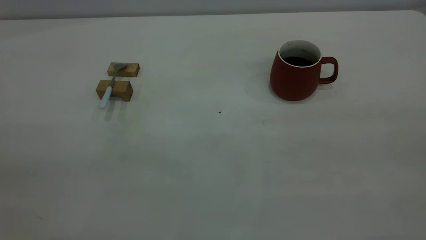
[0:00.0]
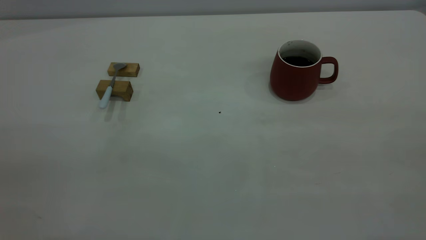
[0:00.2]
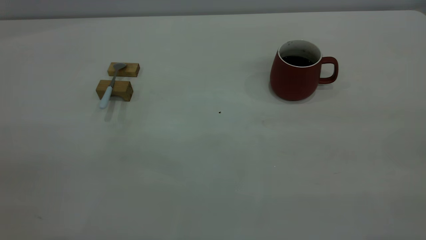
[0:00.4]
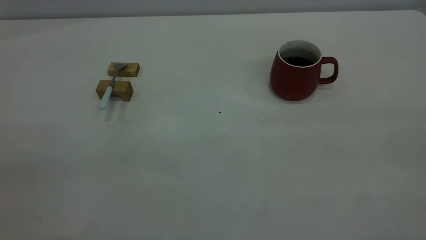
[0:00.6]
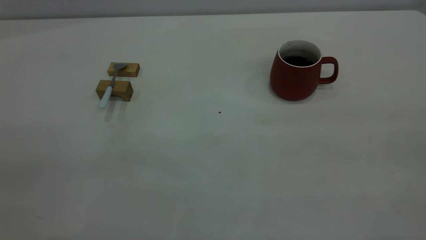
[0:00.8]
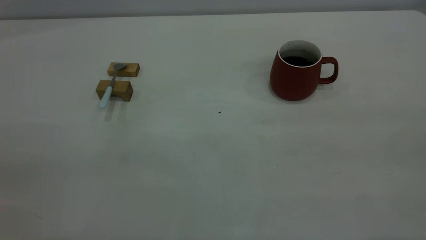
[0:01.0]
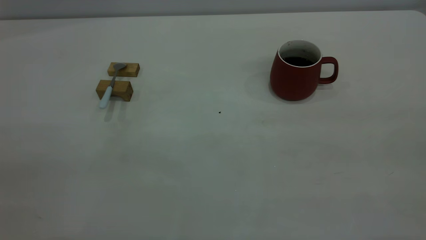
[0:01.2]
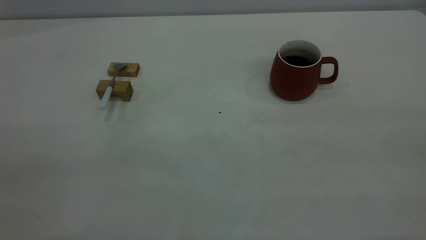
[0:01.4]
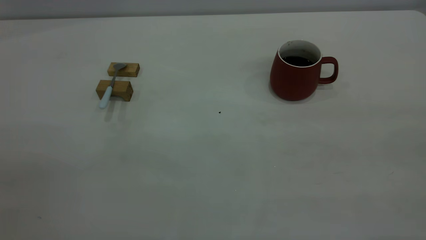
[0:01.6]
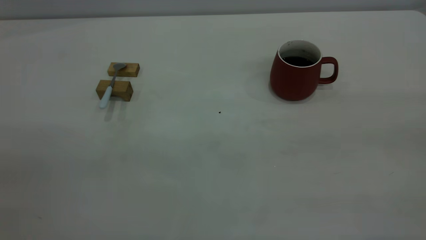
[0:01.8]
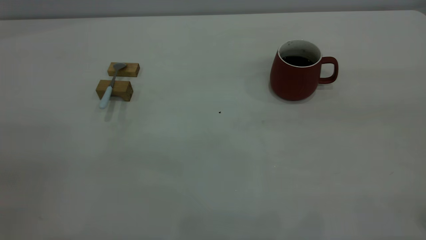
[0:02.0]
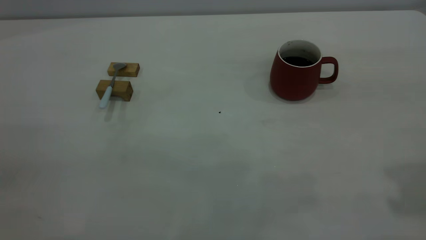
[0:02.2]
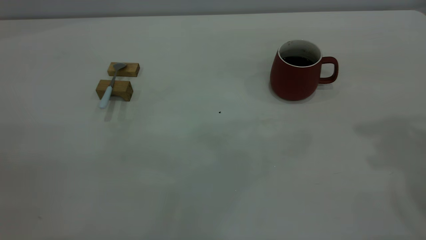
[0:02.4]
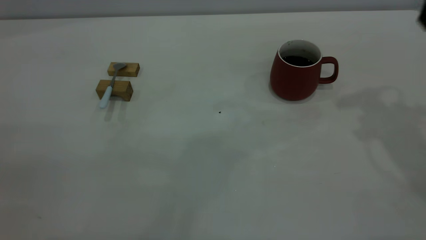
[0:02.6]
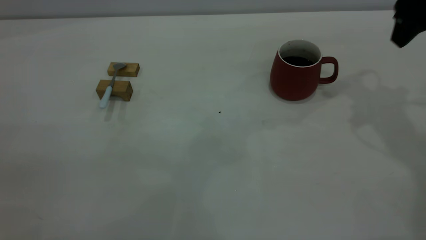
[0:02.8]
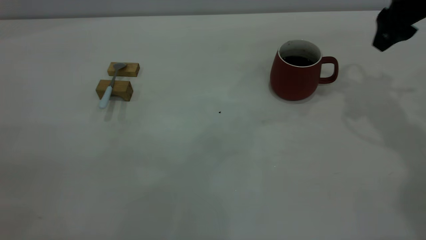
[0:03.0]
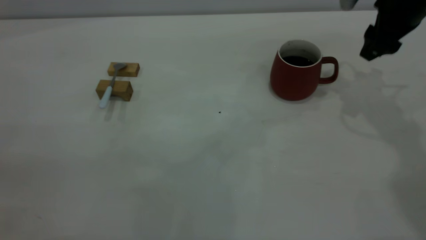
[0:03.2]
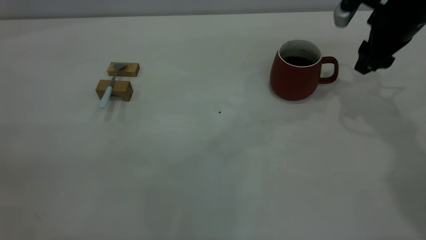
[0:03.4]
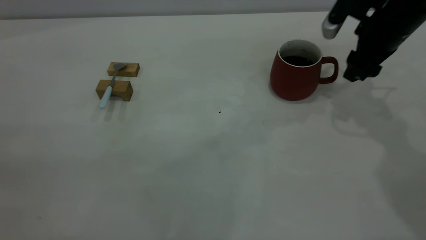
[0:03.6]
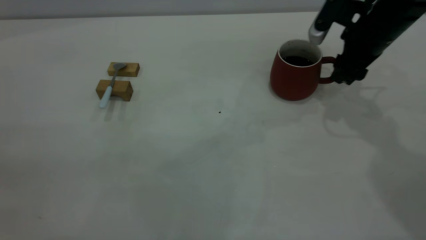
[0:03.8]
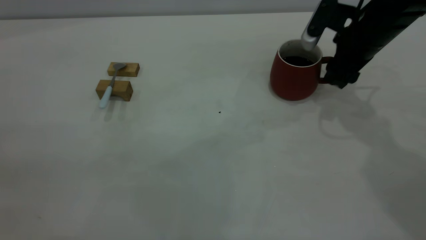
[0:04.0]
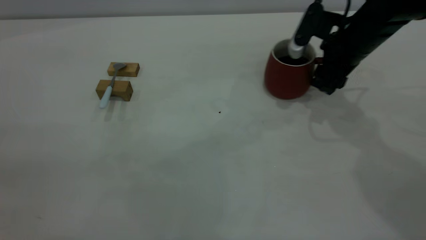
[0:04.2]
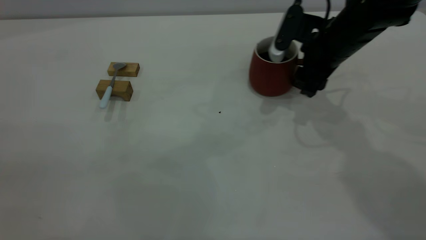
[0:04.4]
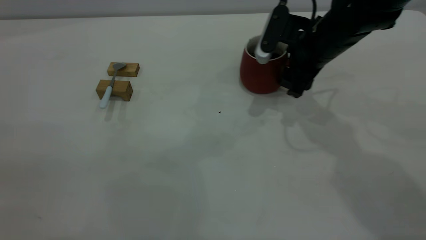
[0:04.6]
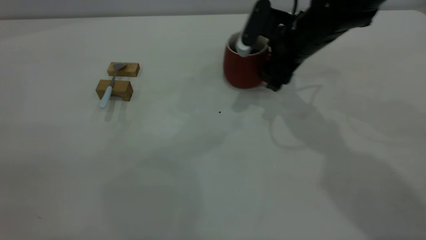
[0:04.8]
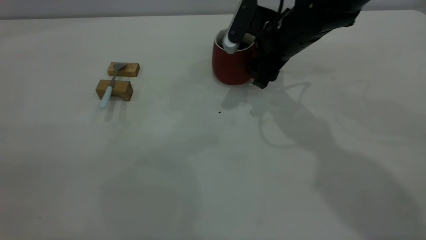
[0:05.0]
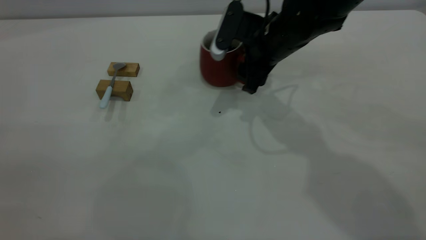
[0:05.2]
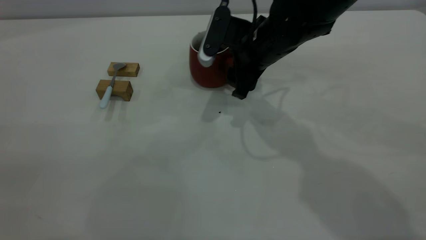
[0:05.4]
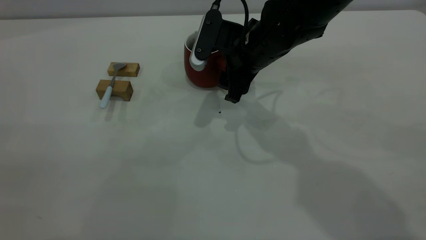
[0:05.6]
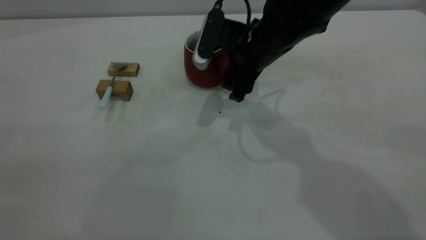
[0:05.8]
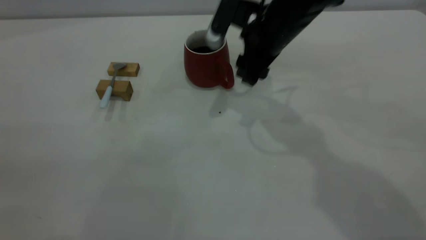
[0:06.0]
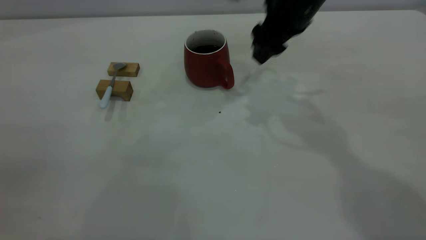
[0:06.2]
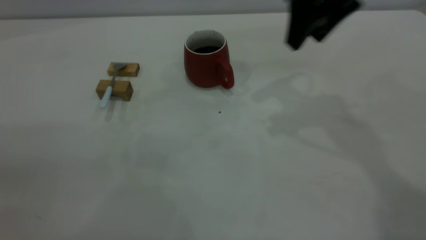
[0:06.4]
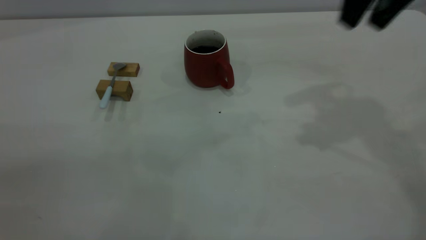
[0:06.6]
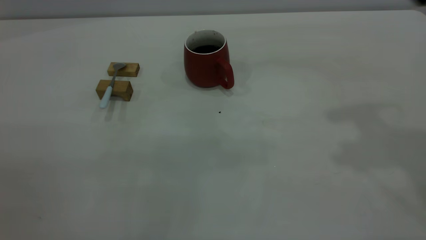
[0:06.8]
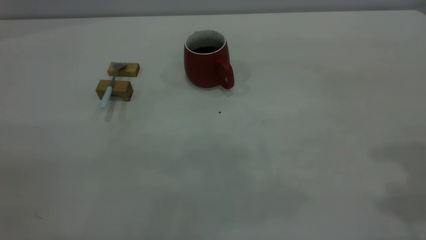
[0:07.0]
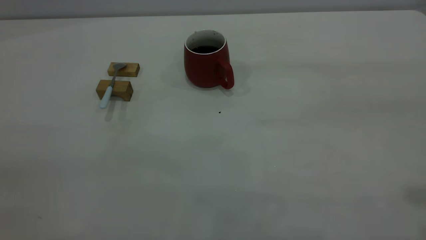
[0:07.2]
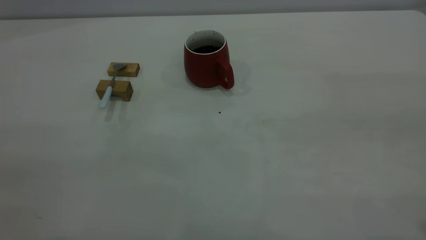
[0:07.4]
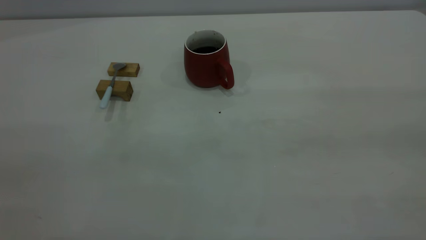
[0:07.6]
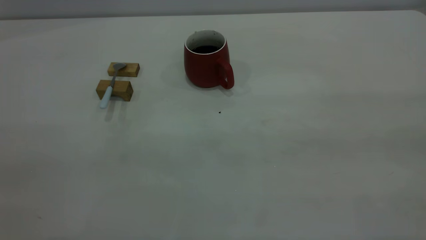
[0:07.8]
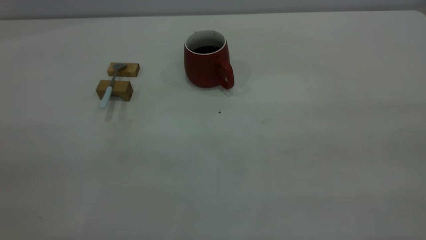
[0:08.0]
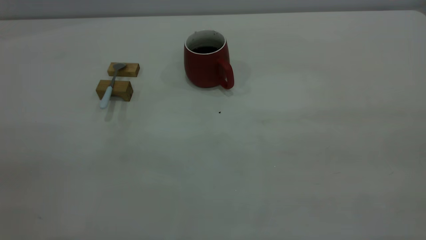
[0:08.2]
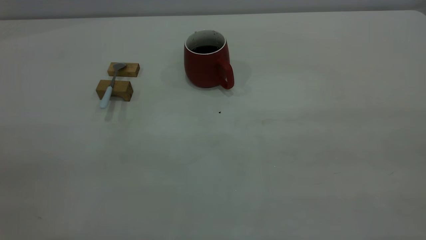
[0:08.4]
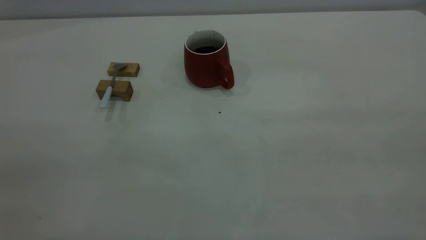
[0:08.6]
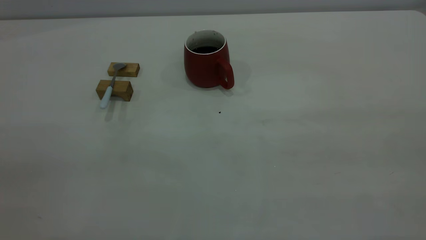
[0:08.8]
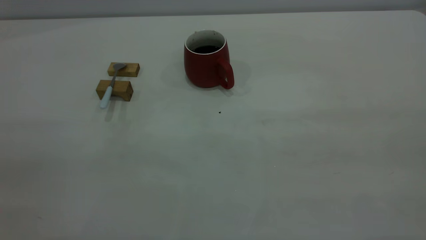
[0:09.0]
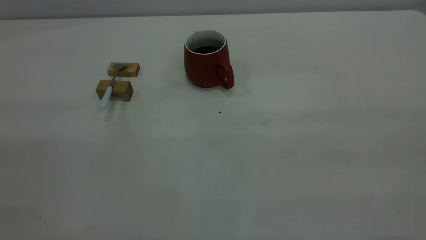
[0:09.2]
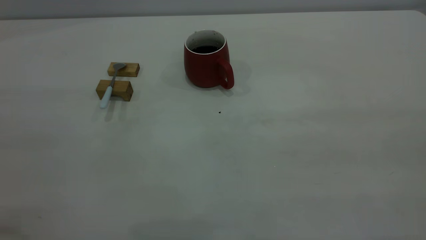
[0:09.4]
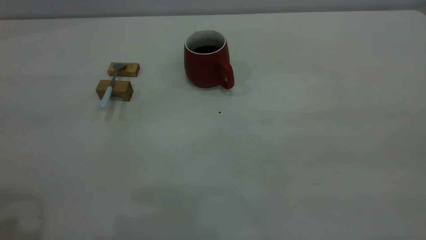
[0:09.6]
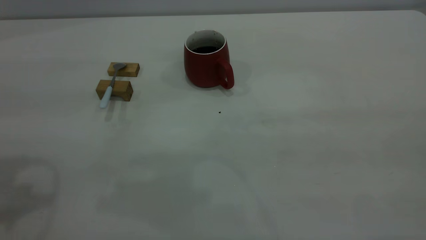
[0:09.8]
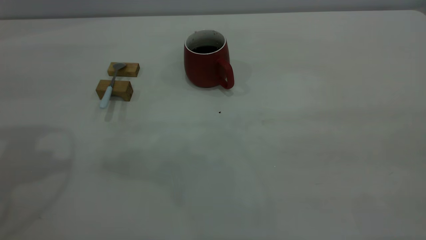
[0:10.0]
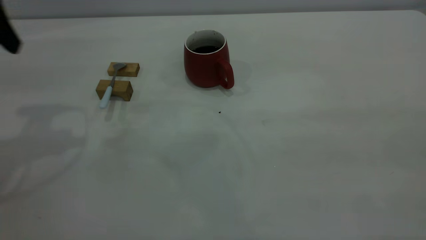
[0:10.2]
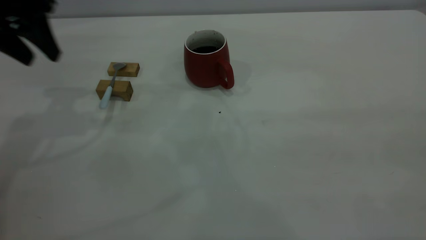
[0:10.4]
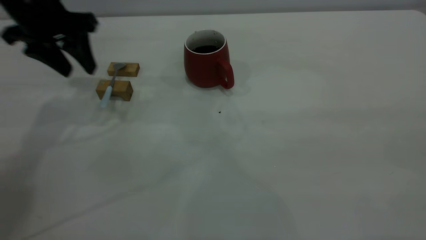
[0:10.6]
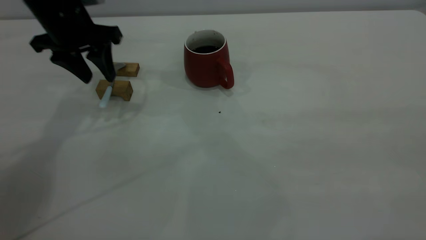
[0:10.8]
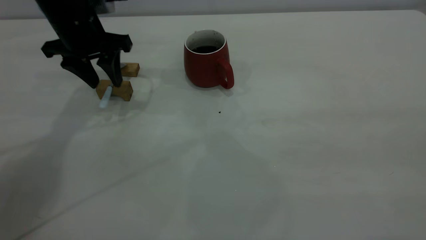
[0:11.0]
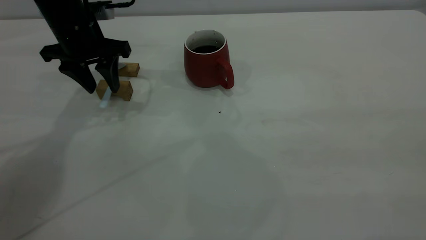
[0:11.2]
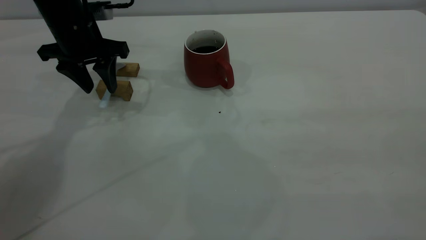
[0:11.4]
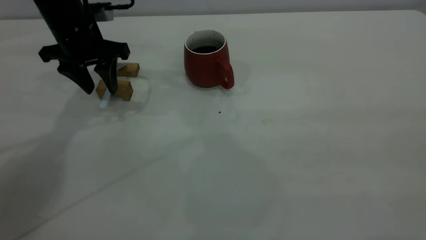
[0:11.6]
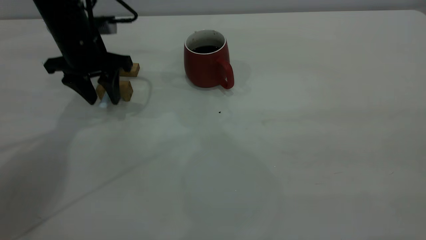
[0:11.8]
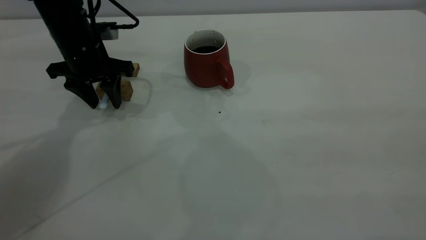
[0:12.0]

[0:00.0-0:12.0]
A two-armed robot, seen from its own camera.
Step, 0:00.0 to 0:06.0: Move the cup with coffee to the center of view.
0:00.0 to 0:01.6: Both grippers stay about where they are.
0:01.6 to 0:03.0: The right gripper goes about 40 cm forward and downward.
0:03.0 to 0:04.4: The right gripper shifts approximately 15 cm to the left and downward.
0:04.4 to 0:06.0: The right gripper heads to the left, covering about 10 cm.
0:06.0 to 0:07.6: The right gripper travels backward, to the right and upward by approximately 50 cm.
0:09.0 to 0:10.4: The left gripper shifts approximately 35 cm forward, and opens its fingers.
0:10.4 to 0:12.0: The left gripper travels downward and forward by about 15 cm.

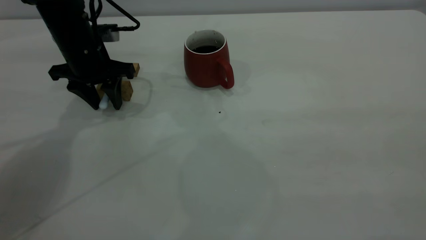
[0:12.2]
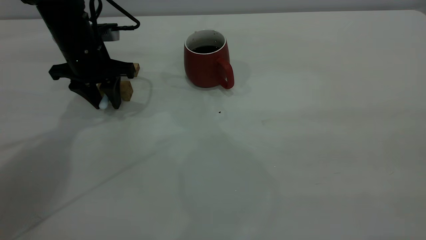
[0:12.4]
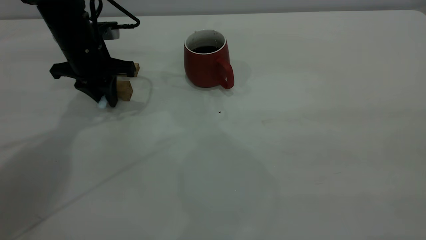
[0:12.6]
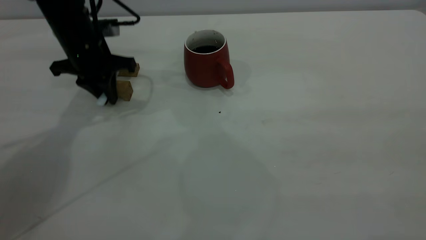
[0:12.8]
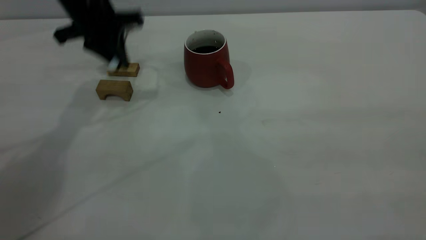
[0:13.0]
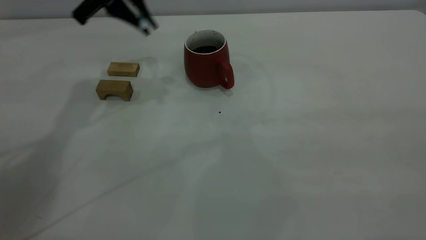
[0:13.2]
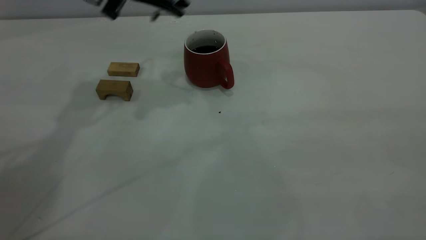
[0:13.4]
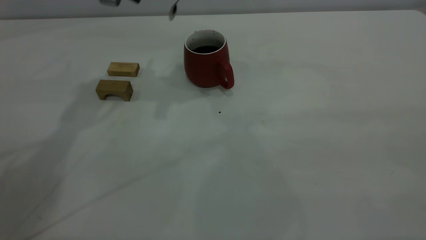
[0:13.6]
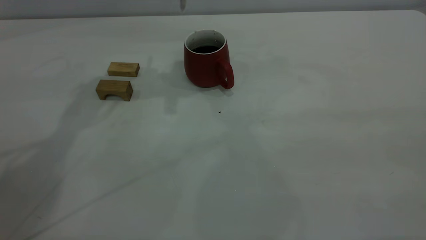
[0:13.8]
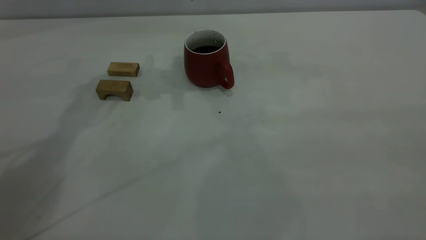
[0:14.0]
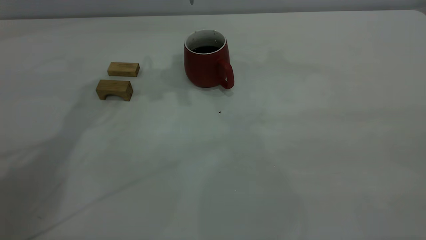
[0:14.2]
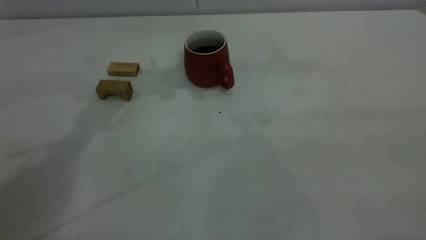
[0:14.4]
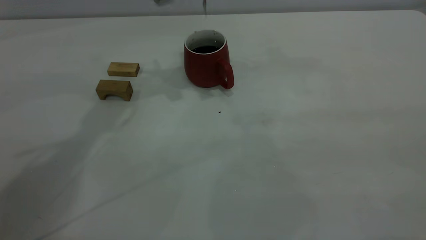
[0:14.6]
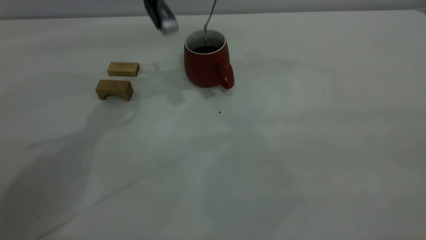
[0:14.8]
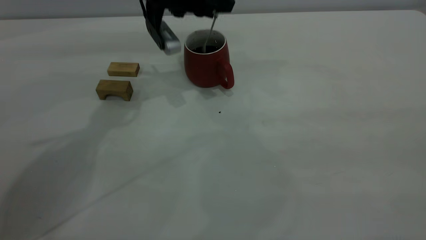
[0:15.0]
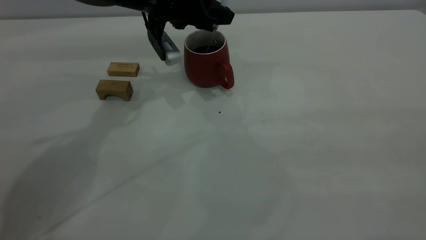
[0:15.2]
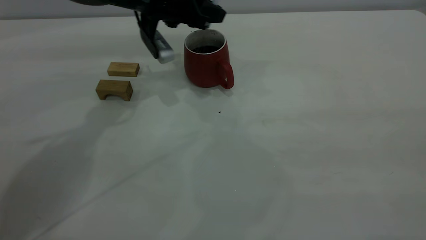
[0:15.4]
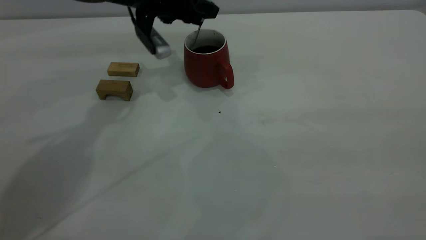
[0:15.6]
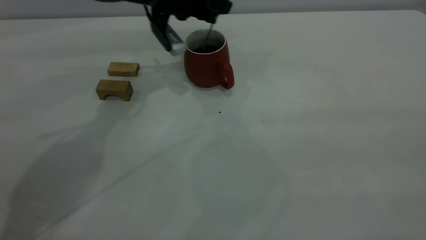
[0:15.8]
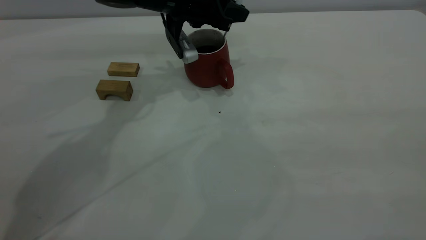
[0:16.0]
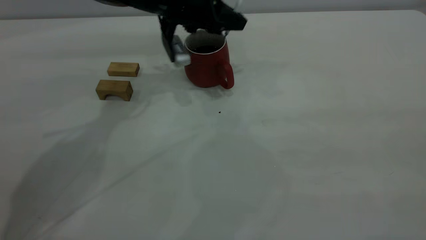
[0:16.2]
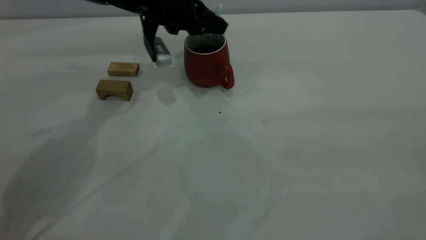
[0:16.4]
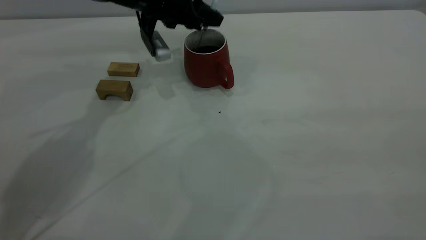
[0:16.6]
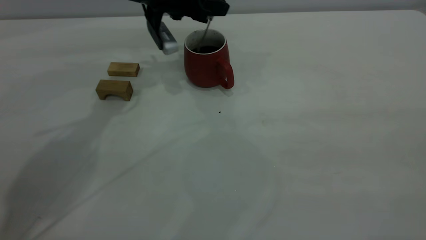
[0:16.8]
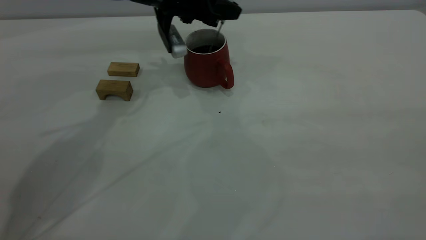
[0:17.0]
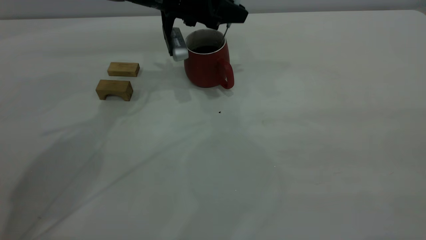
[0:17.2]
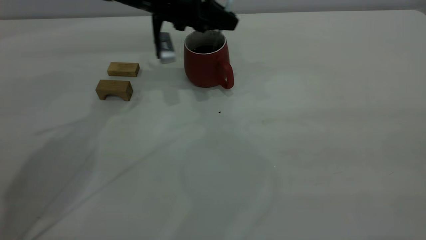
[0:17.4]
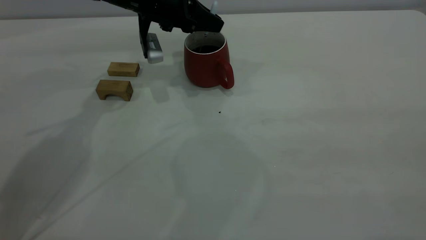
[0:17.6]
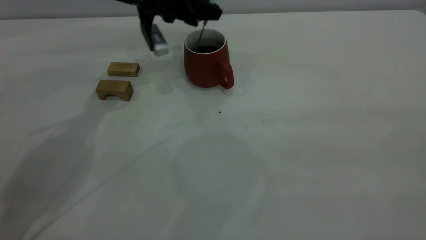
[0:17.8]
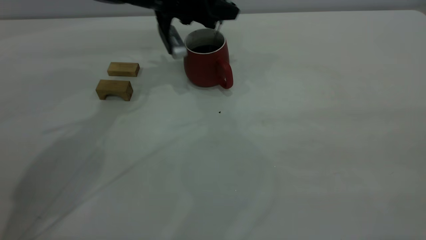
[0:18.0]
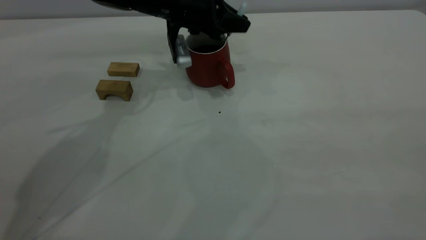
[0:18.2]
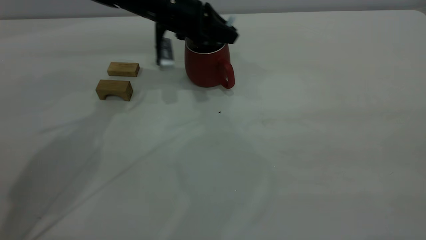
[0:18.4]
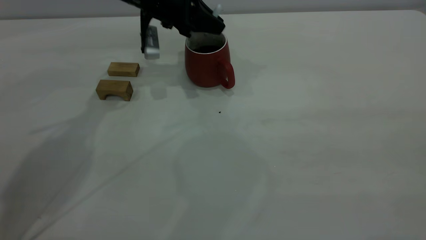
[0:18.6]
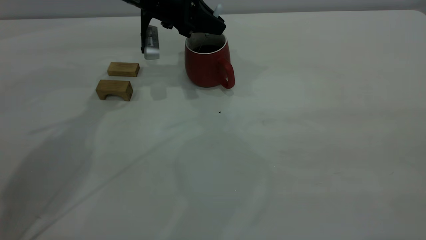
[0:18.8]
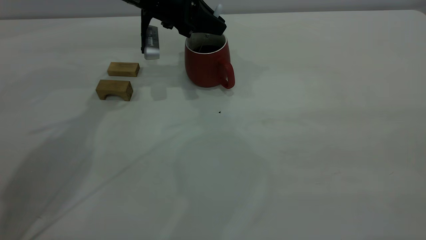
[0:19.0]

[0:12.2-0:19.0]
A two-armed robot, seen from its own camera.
0:12.2 to 0:13.6: The left gripper travels upward and to the right by about 15 cm, and closes.
0:13.6 to 0:15.0: The left gripper travels downward by about 10 cm.
0:15.0 to 0:19.0: There are only small adjustments of the grippers.
